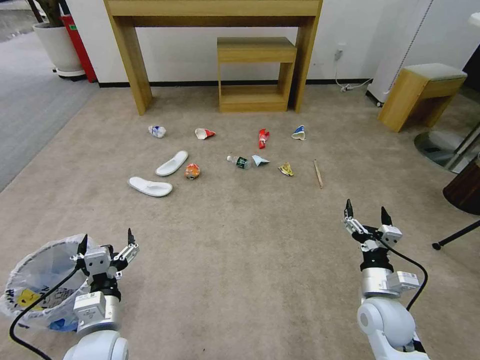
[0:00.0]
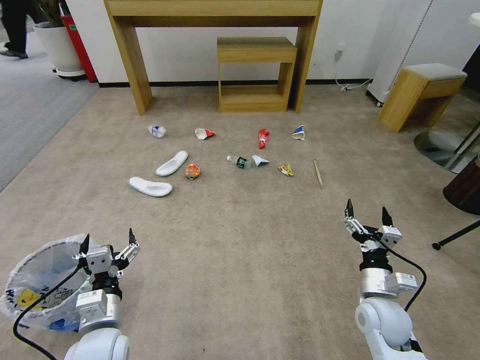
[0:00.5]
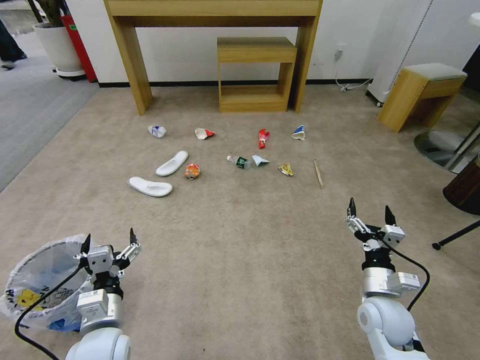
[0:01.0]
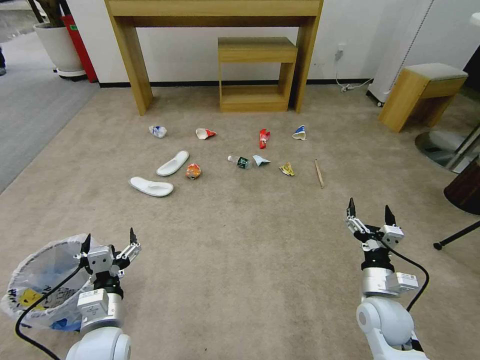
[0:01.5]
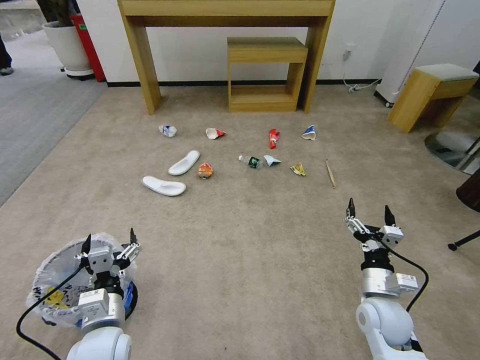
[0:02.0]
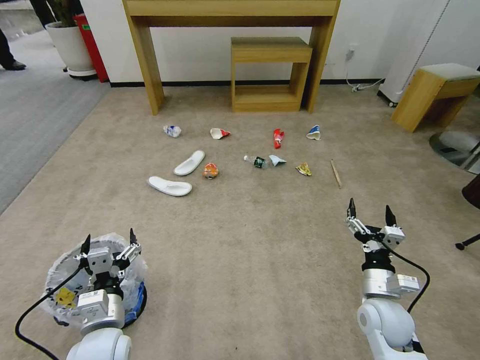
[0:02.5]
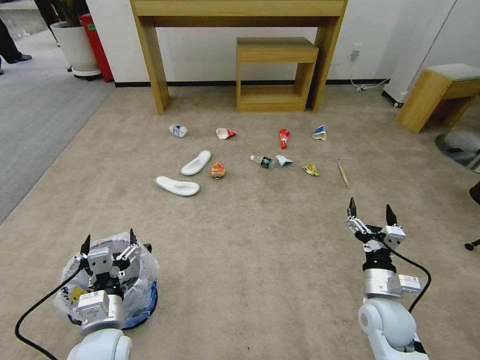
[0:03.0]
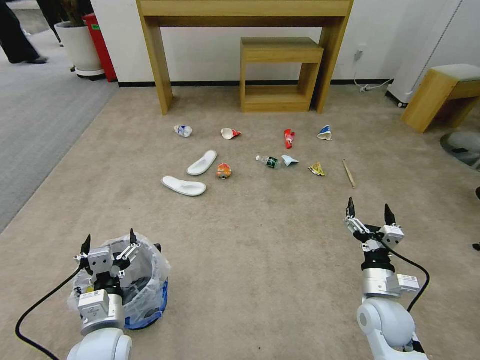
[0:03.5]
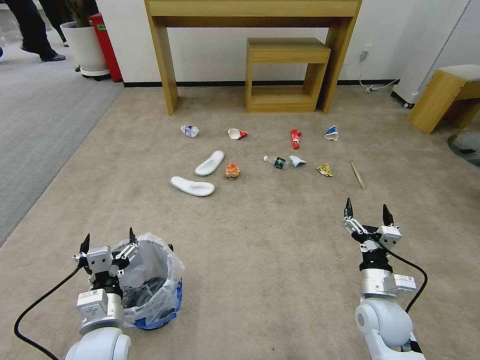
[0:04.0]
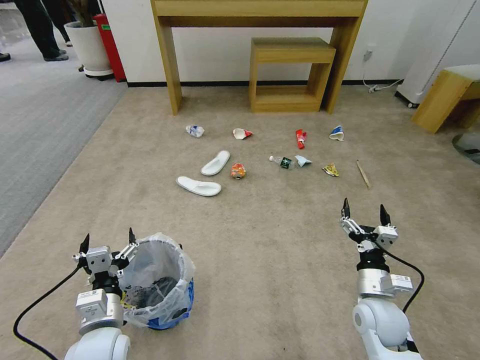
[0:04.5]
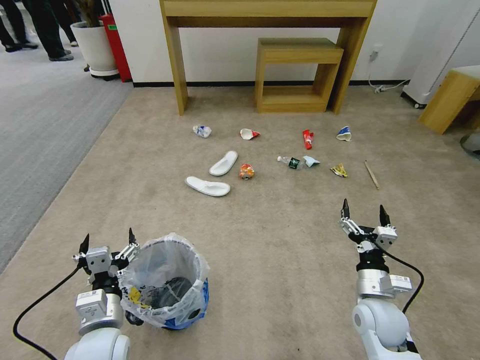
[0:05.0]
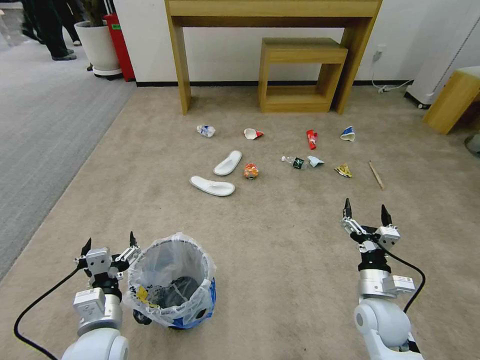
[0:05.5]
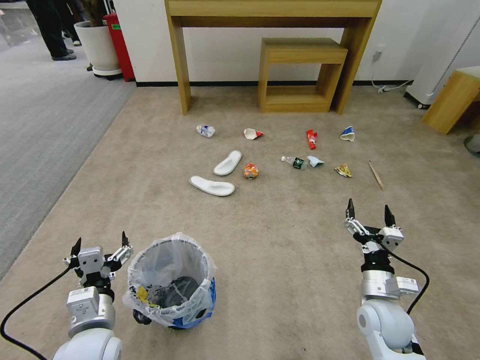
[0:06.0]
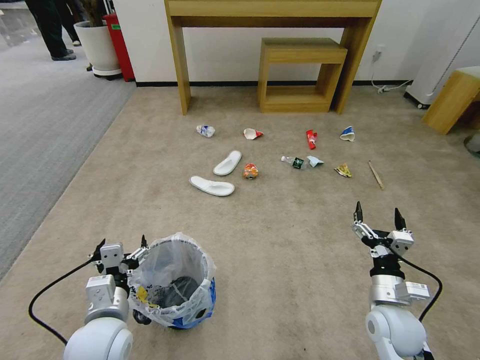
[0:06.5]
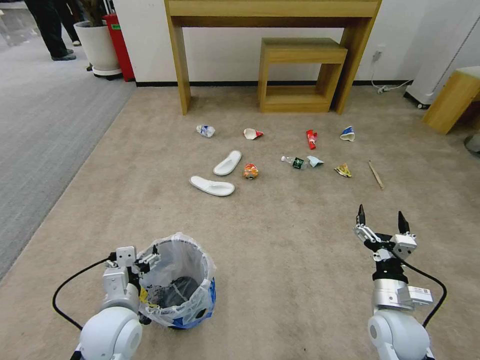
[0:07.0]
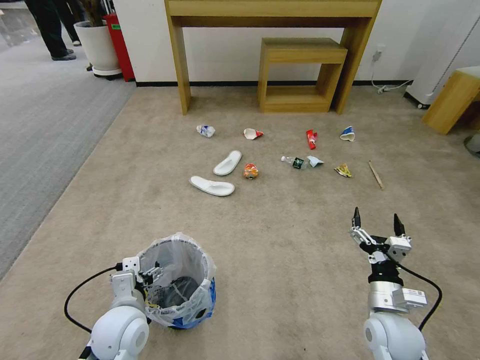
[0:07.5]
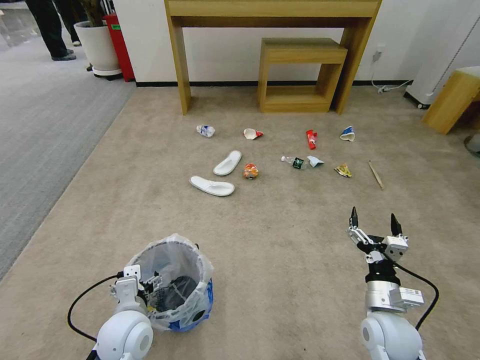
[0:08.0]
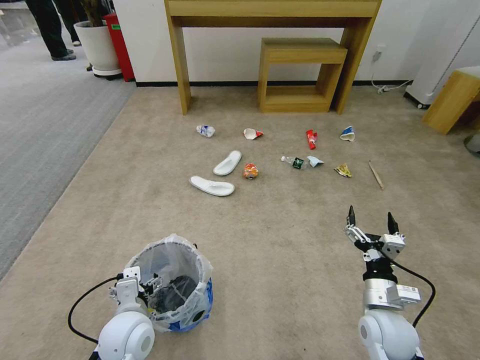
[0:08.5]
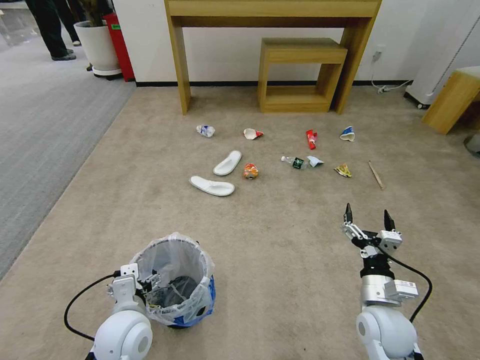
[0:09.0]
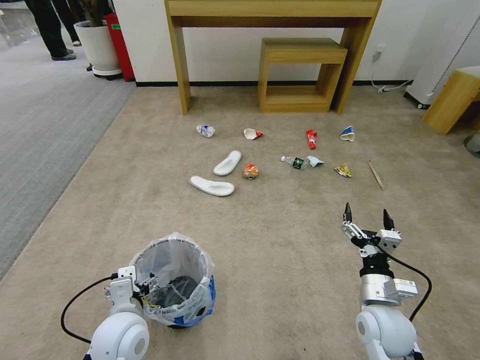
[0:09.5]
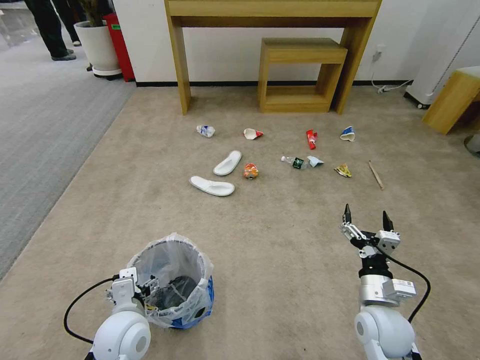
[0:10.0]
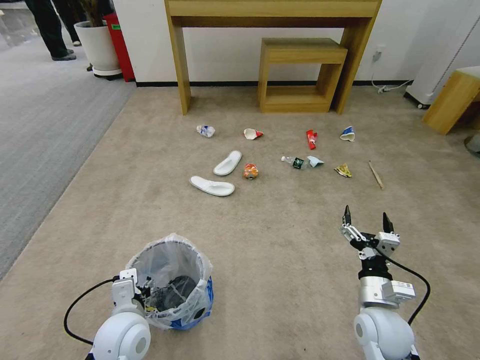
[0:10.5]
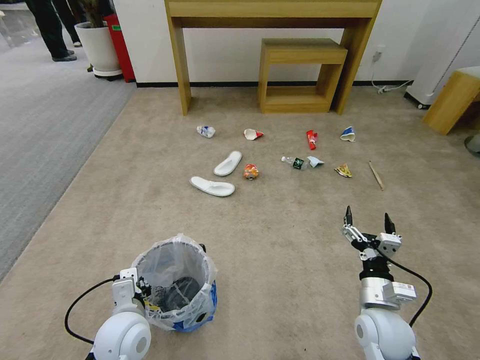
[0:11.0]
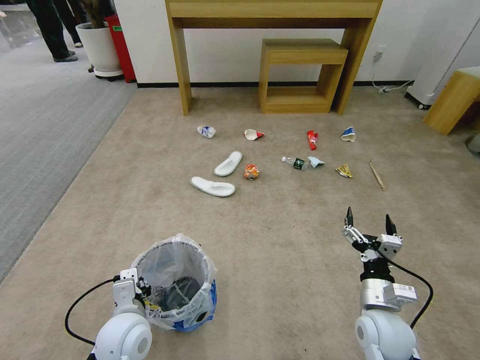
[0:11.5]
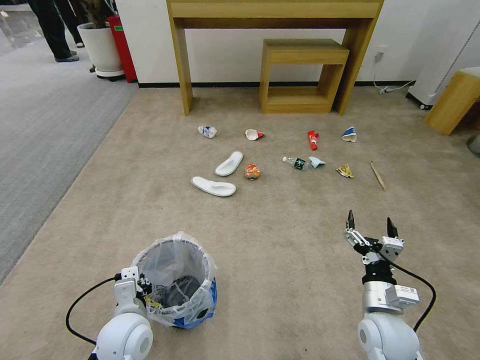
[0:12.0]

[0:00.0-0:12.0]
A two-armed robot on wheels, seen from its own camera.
Task of the whole recording: Pick up the trash bin and place the garbage on the floor into it.
0:06.0 to 0:08.0: The left gripper shifts by about 5 cm.
0:08.0 to 0:10.0: The grippers stay close to where they were, moving slightly.
0:10.0 to 0:12.0: The left gripper closes up.

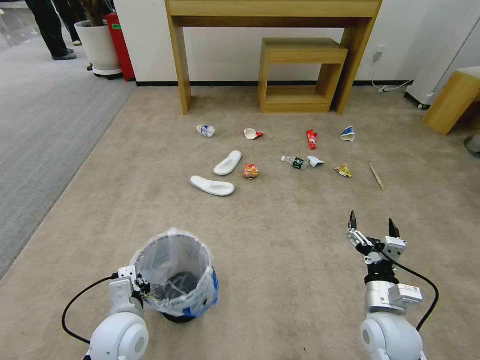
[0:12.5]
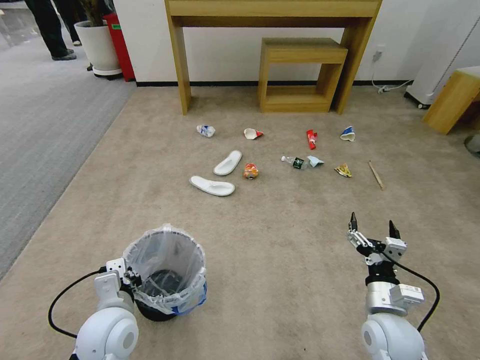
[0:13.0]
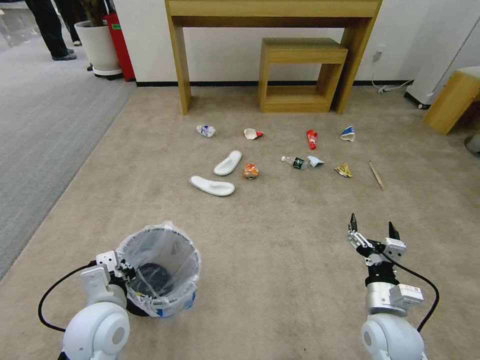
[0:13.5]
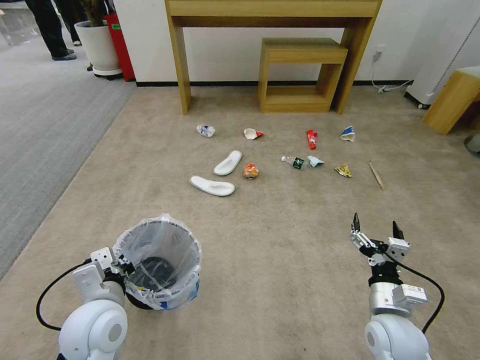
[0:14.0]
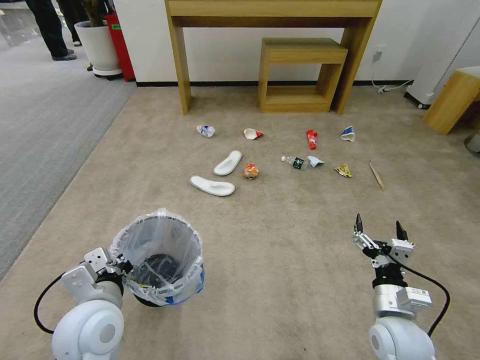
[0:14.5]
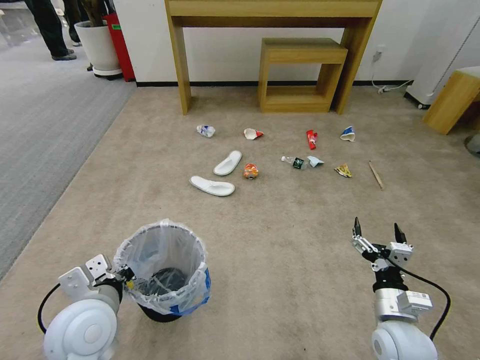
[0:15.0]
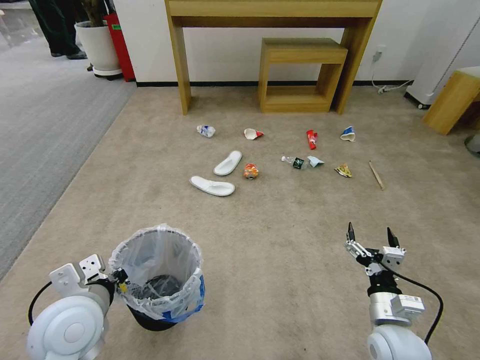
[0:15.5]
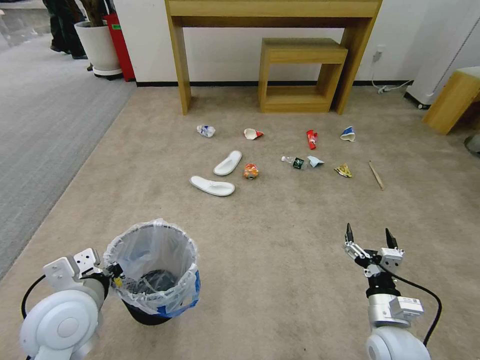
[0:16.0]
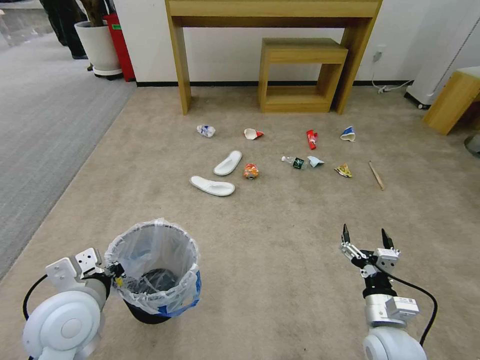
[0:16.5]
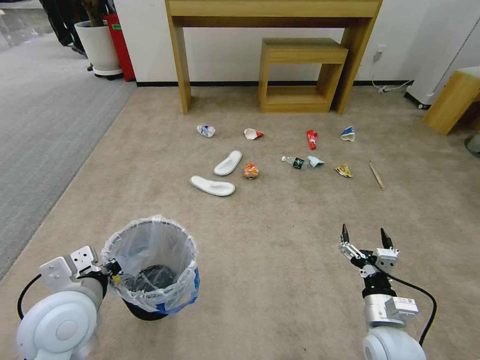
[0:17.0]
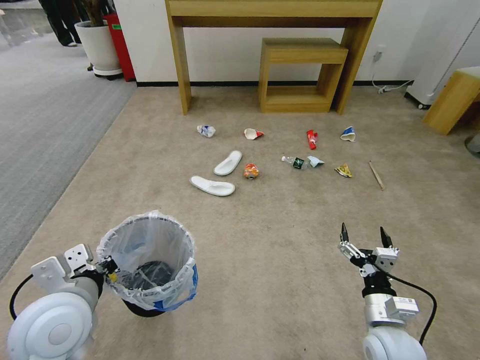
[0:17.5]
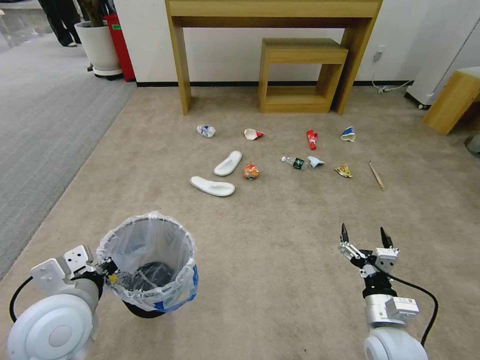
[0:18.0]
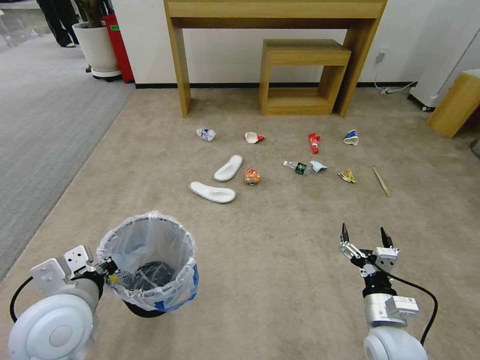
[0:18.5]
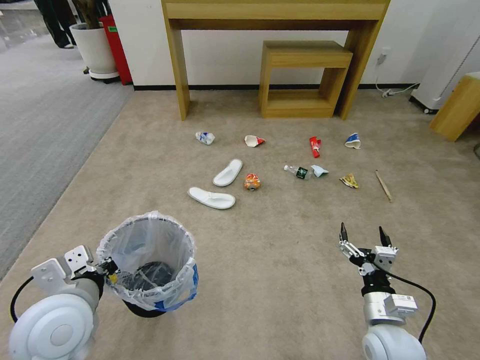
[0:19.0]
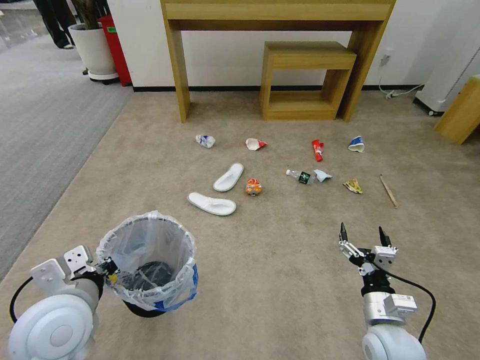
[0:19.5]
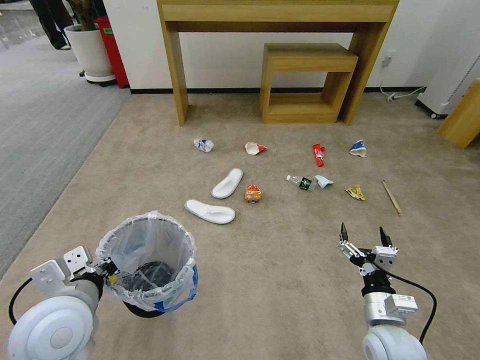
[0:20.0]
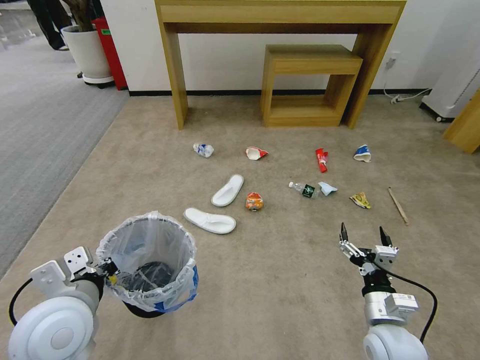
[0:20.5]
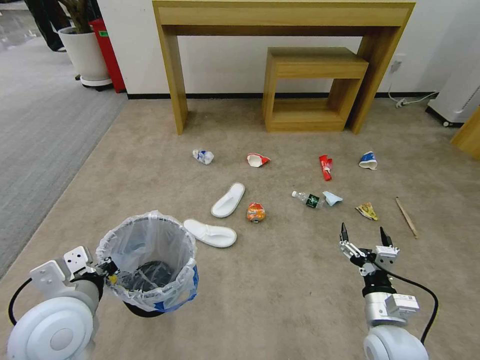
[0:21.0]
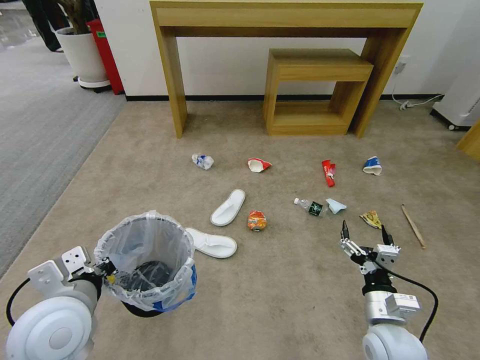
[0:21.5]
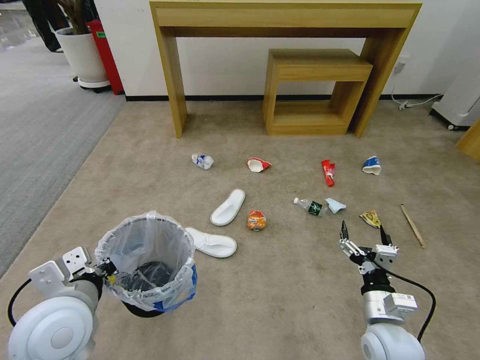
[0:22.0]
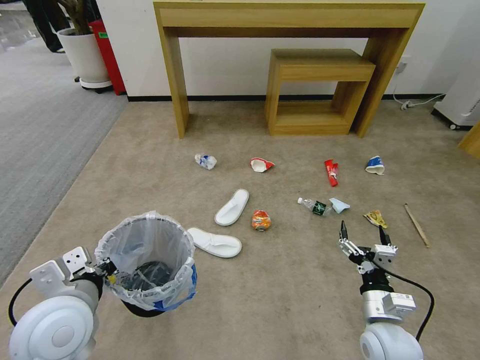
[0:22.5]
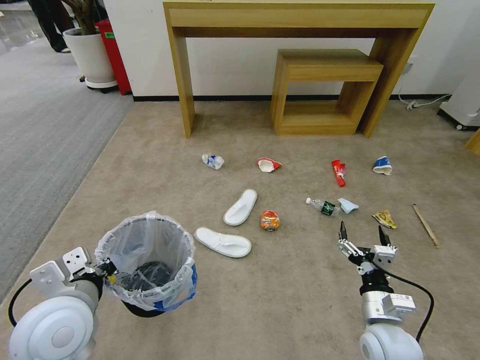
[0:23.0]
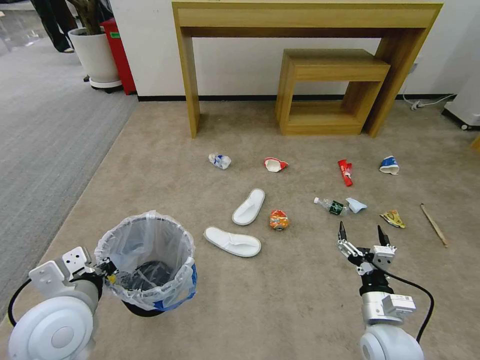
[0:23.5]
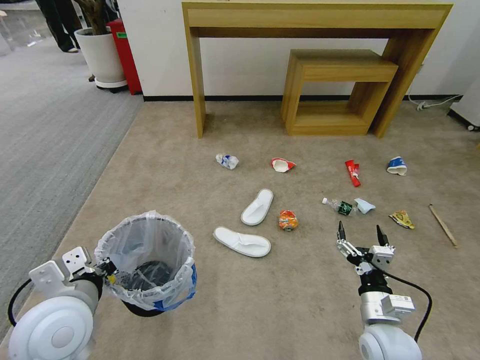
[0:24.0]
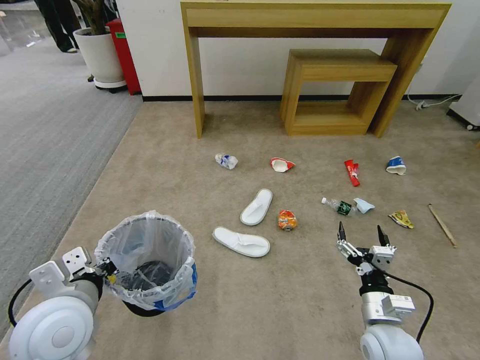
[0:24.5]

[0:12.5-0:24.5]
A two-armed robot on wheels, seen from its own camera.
Task of the whole recording: Pick up the trash bin and place the garbage on the floor into it.
0:12.5 to 0:14.5: The left gripper goes about 10 cm upward.
0:14.5 to 0:18.5: The grippers move only a little.
0:18.5 to 0:24.5: Both grippers stay about where they are.

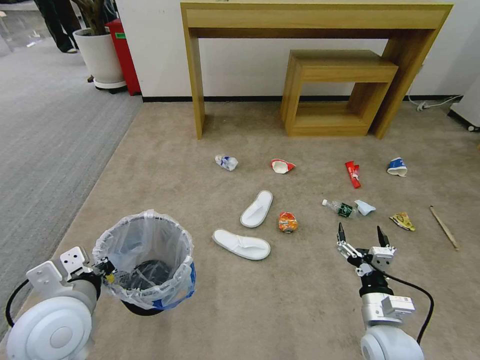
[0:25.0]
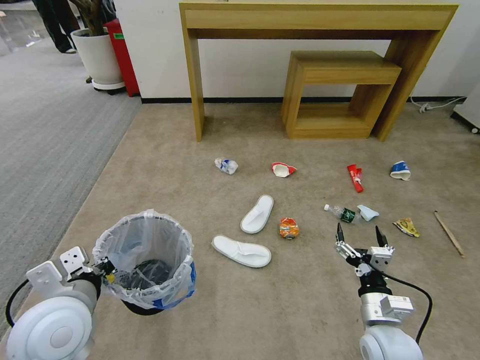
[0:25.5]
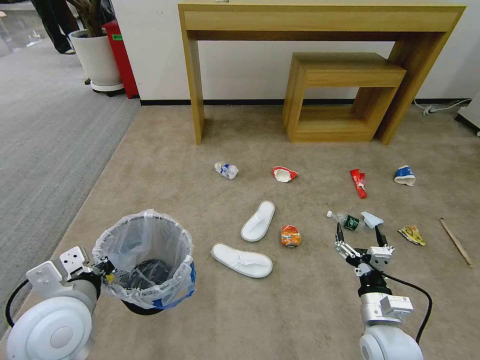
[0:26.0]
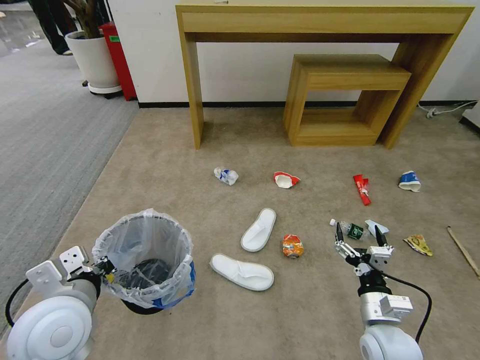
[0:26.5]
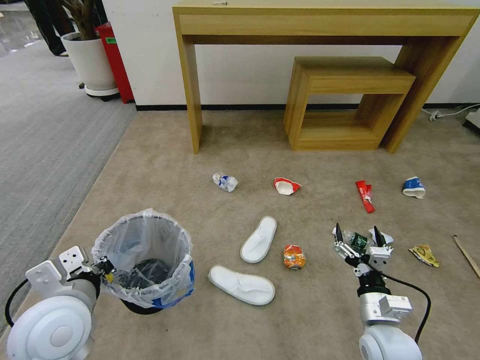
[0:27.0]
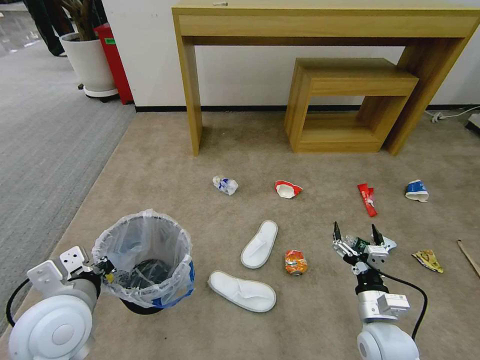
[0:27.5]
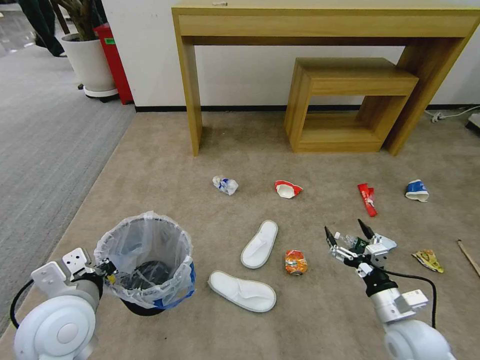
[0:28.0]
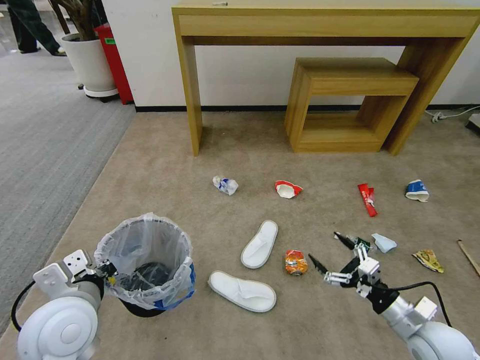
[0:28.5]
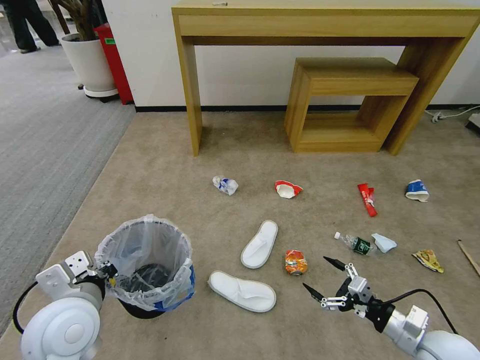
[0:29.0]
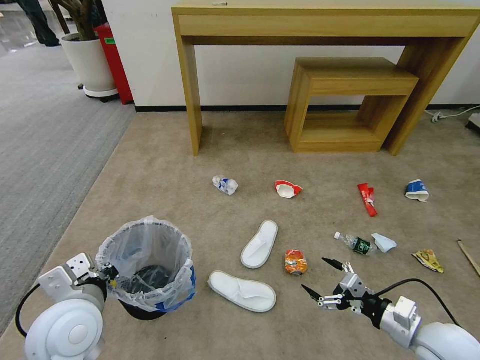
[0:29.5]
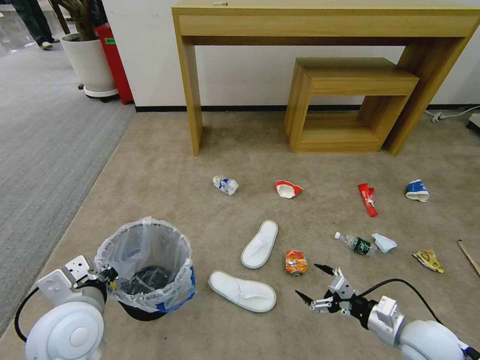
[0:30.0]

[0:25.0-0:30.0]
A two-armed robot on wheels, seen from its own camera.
Task of the whole recording: Pick up the trash bin and place the garbage on the floor into it.
0:27.5 to 0:30.0: The right gripper moves to the right, about 10 cm.
